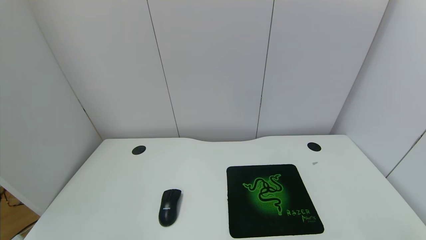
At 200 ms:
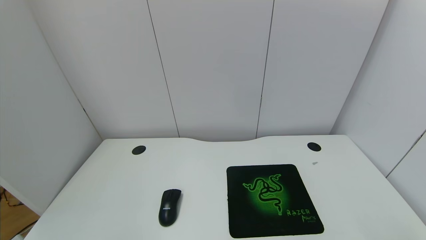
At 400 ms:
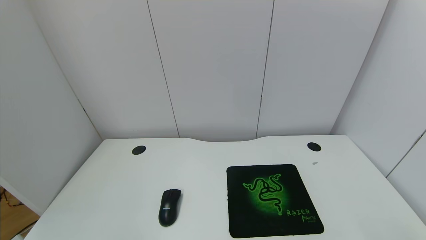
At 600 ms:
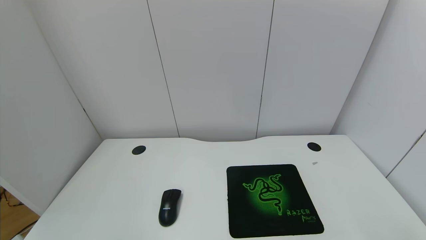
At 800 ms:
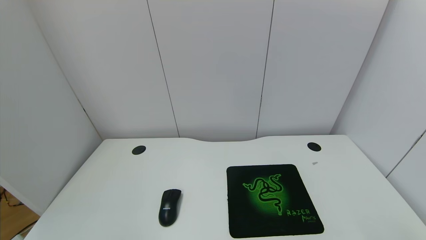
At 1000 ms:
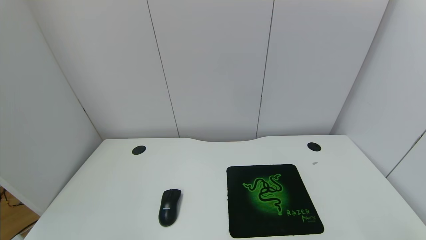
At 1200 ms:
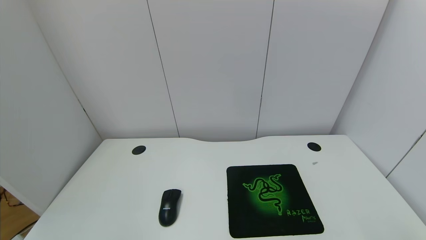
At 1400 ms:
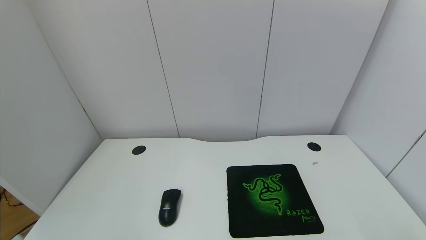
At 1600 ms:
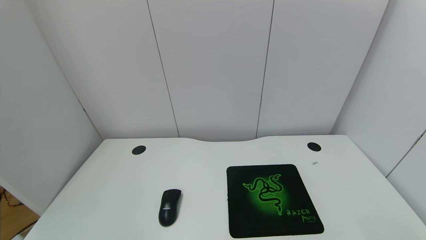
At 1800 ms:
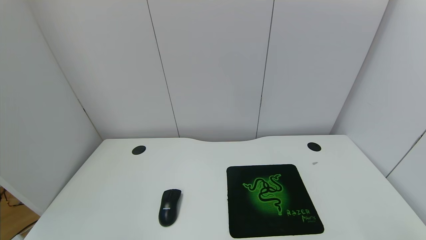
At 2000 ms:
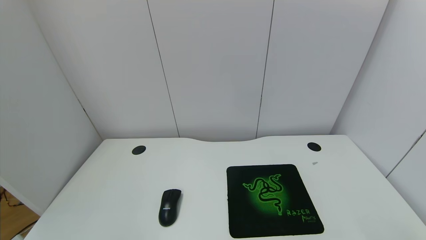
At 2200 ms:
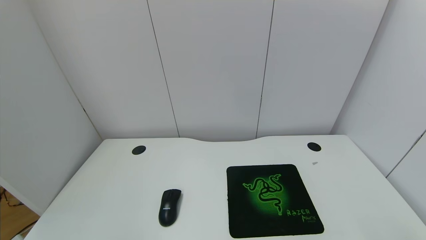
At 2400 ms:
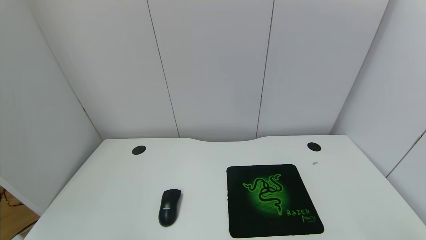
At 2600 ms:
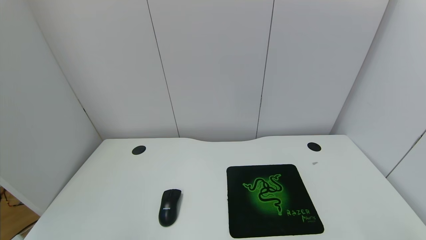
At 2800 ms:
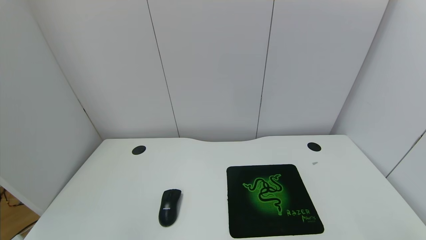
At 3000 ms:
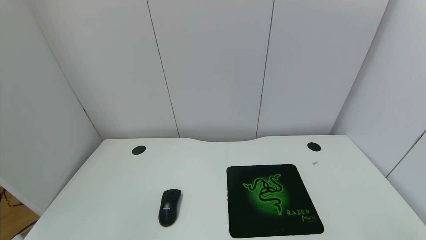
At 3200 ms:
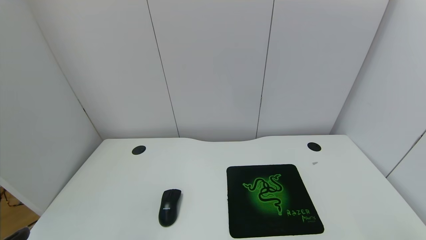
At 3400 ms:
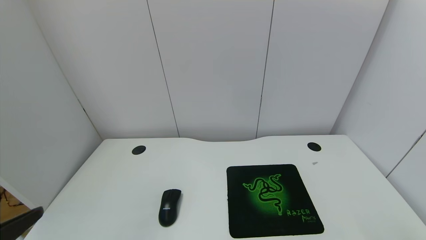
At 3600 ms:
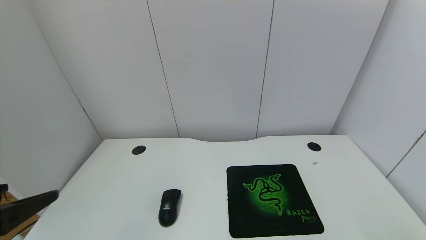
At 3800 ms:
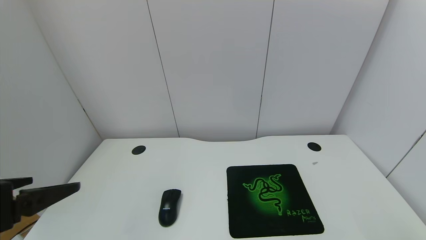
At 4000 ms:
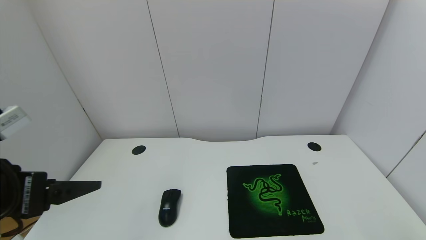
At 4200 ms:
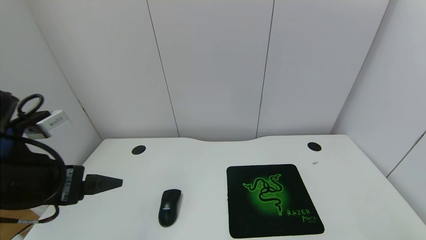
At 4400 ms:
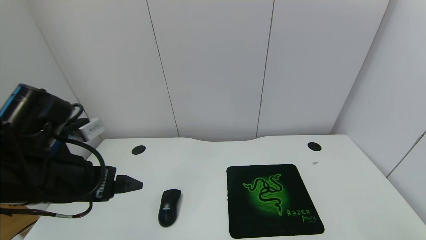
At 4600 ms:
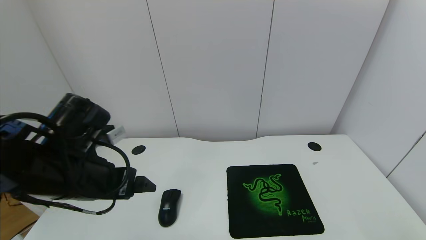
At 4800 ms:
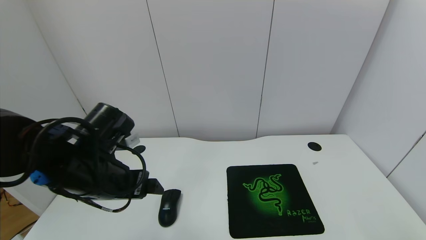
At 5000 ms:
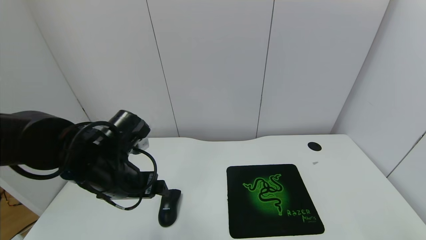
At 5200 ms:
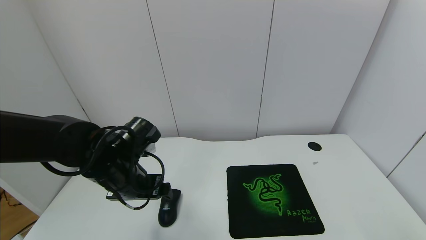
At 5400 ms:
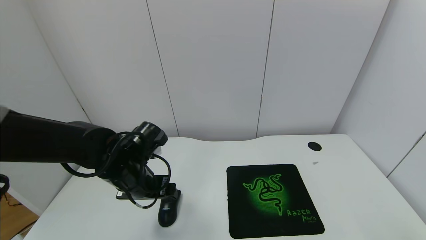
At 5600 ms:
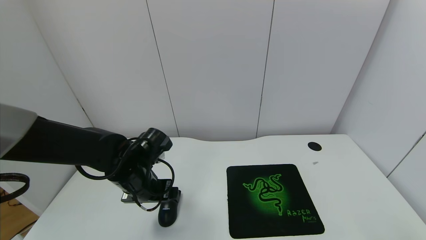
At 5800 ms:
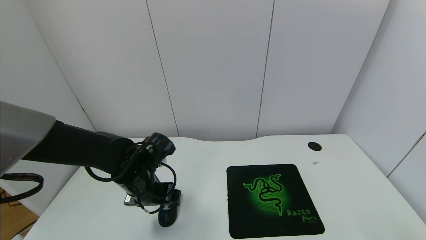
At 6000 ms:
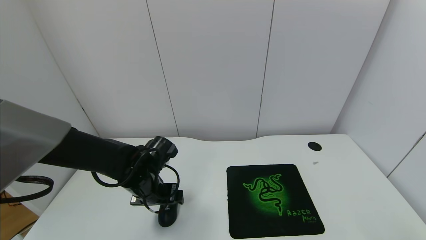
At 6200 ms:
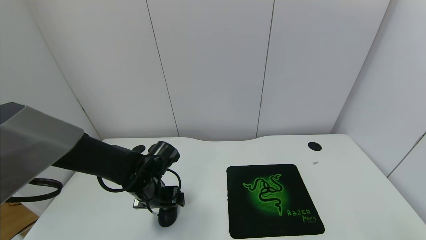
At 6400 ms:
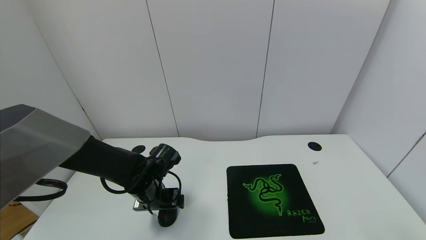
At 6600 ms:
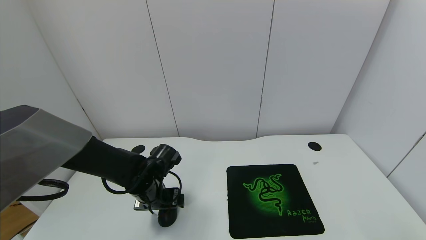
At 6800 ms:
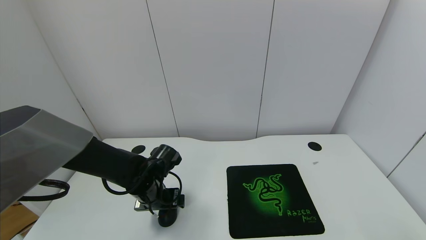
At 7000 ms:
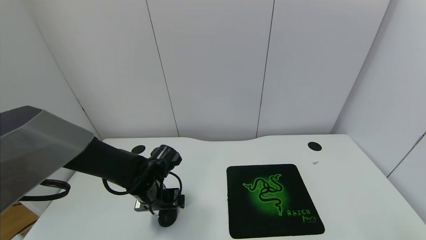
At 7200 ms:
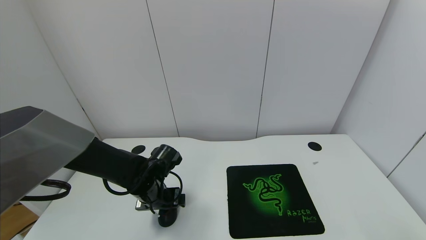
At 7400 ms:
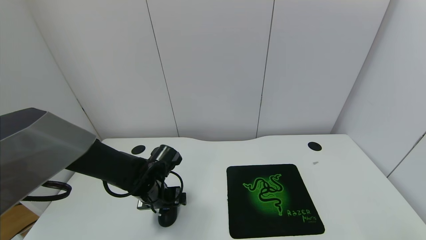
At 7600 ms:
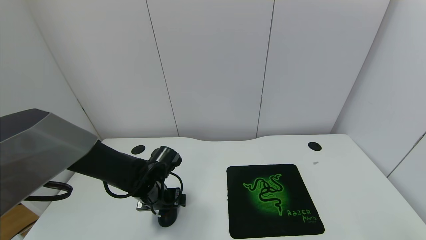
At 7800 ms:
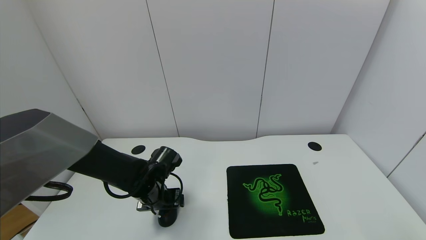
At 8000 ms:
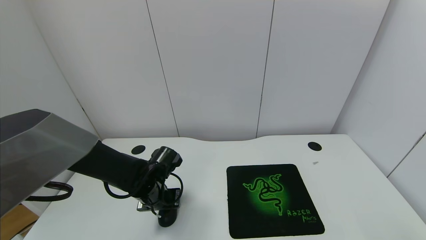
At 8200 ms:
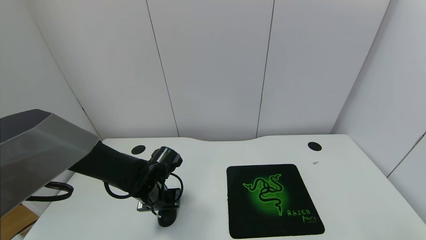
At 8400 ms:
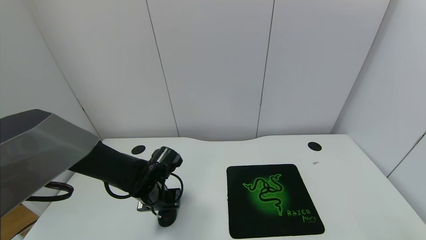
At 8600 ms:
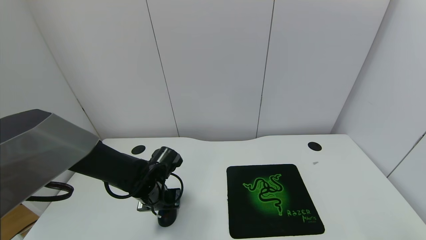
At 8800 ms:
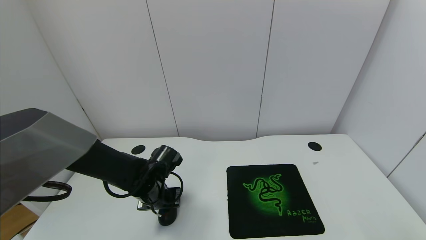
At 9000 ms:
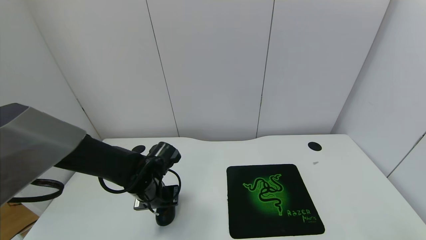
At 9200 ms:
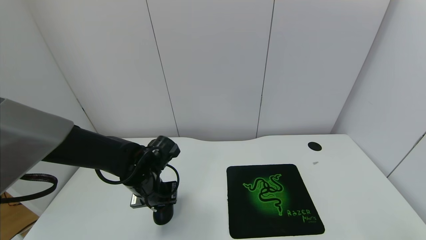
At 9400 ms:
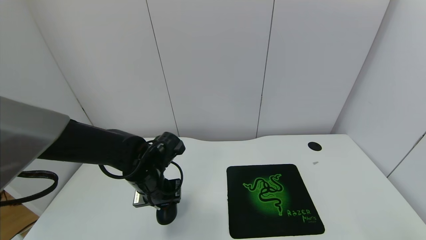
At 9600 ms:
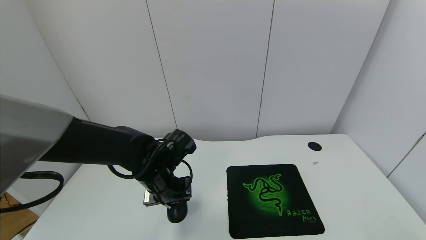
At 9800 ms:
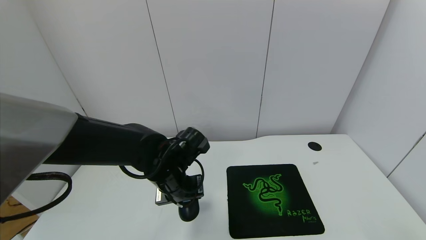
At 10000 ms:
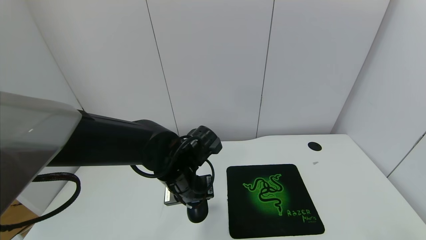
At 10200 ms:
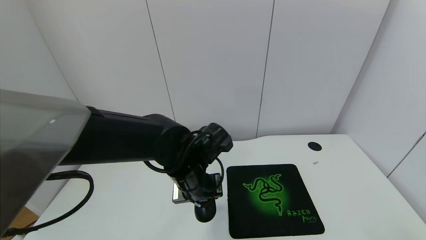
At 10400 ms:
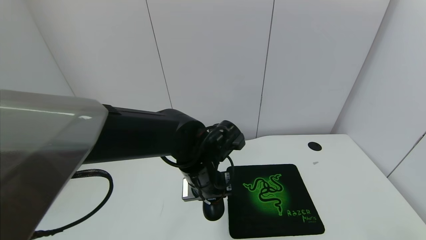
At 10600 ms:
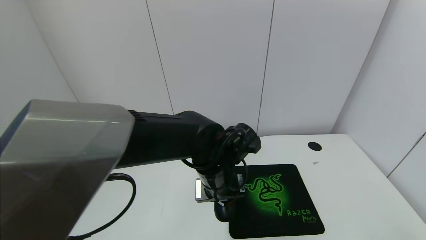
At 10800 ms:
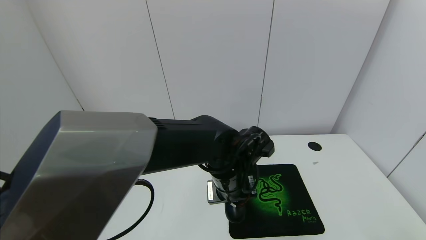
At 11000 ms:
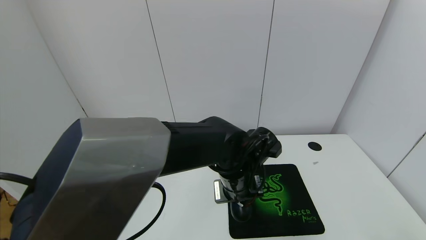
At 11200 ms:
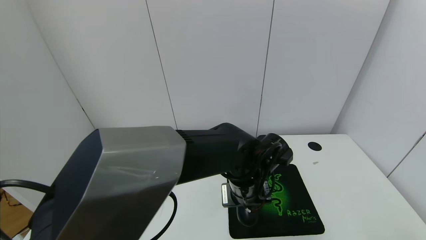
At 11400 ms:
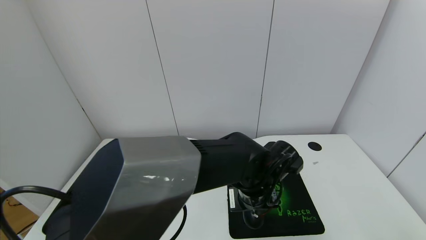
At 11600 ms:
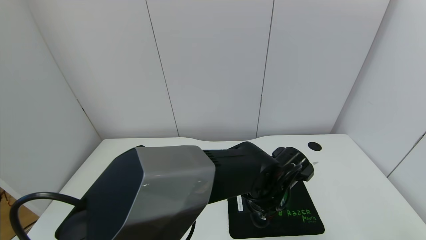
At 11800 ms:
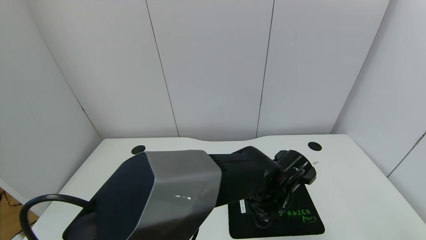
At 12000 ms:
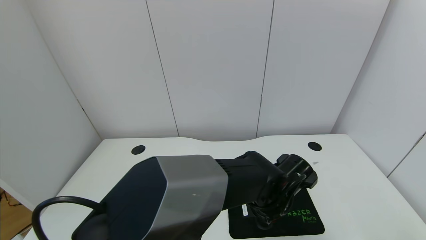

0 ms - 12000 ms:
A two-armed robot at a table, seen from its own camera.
Task of the whole recording: use the gripper to move the mouse from one side of the table to the mouse pad on the opposite side.
Step, 0 ms - 8000 ms: Grasp the mouse with the left gripper.
0 ms - 1600 ms: Both grippers stay put.
3000 ms - 4400 ms: The left gripper travels forward by approximately 20 cm.
4400 ms - 6000 ms: The left gripper travels downward and forward by some 20 cm.
6000 ms - 7600 ms: The grippers make only small movements.
7600 ms - 9000 ms: The left gripper closes its fingers.
9000 ms - 10400 ms: The left gripper goes some 15 cm to the right and upward.
10400 ms - 12000 ms: The left gripper is displaced to the right and downward by approximately 15 cm.

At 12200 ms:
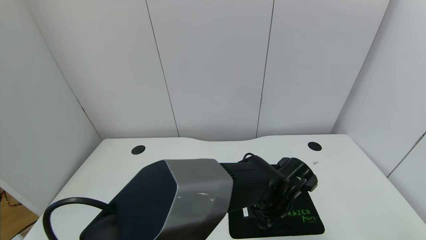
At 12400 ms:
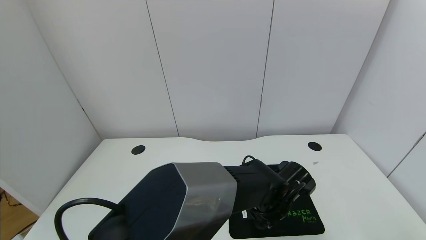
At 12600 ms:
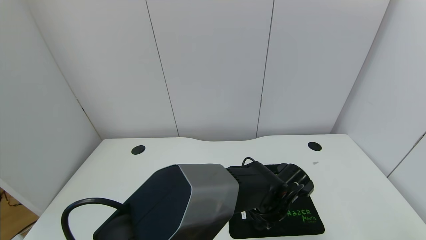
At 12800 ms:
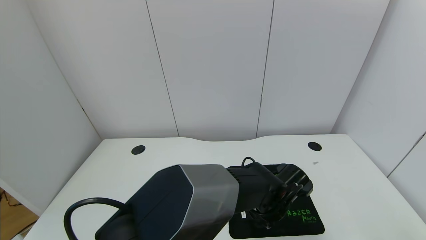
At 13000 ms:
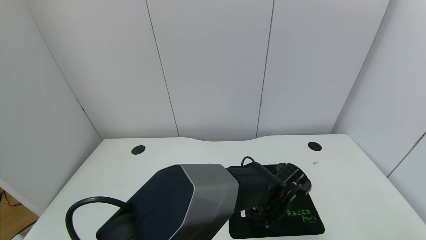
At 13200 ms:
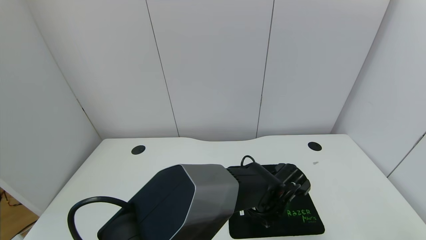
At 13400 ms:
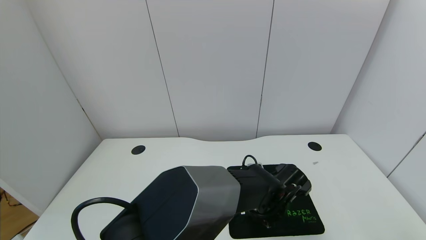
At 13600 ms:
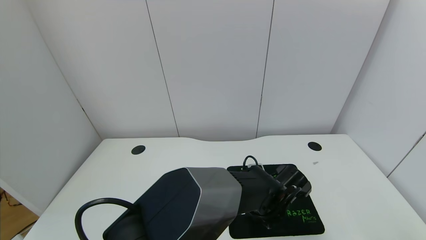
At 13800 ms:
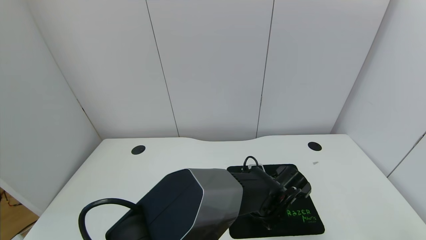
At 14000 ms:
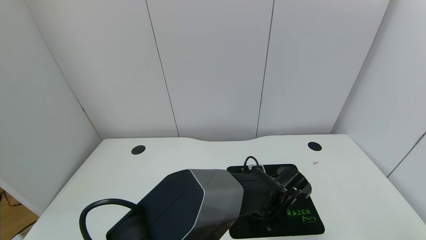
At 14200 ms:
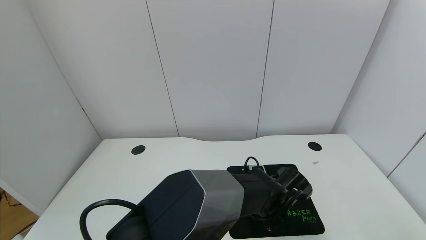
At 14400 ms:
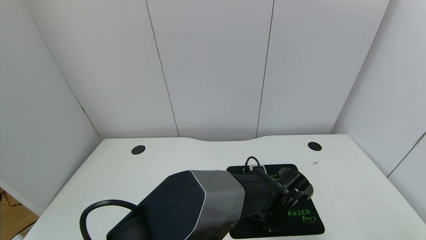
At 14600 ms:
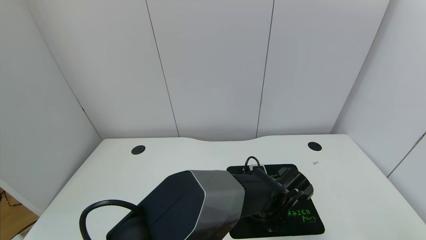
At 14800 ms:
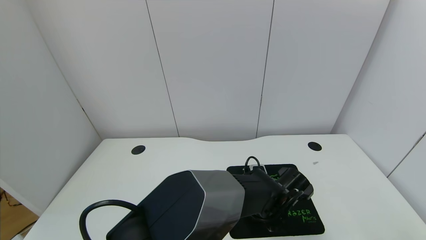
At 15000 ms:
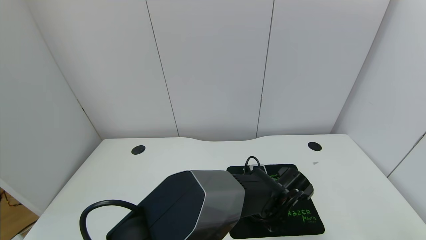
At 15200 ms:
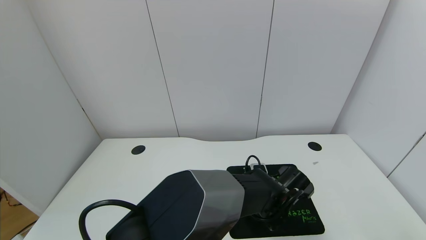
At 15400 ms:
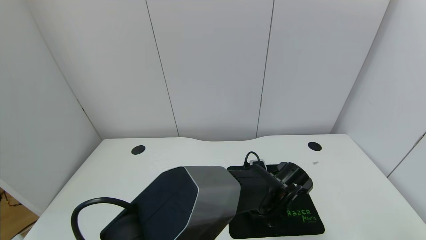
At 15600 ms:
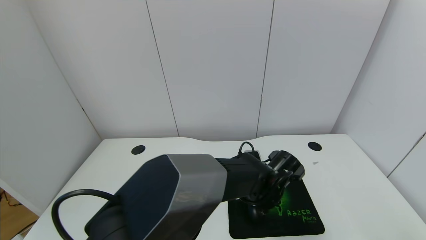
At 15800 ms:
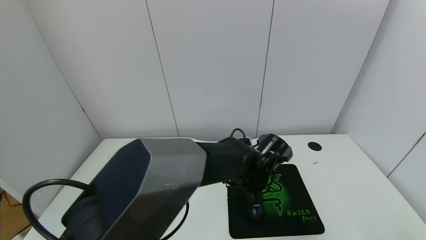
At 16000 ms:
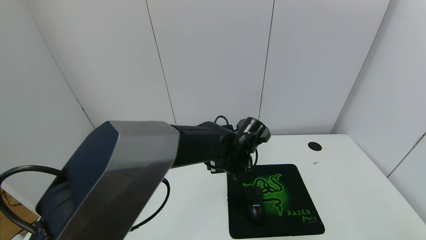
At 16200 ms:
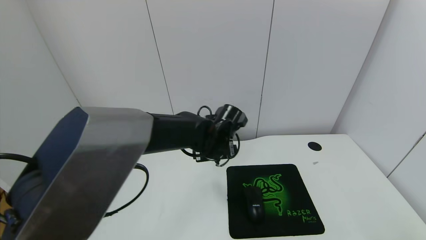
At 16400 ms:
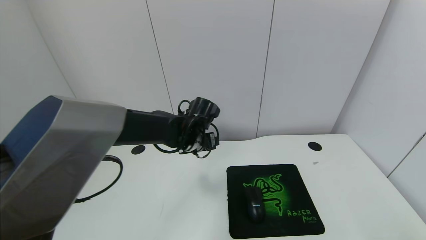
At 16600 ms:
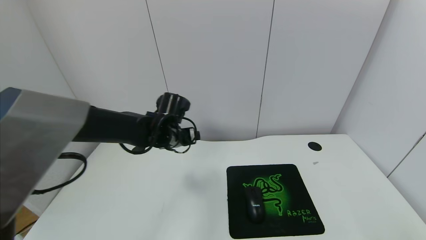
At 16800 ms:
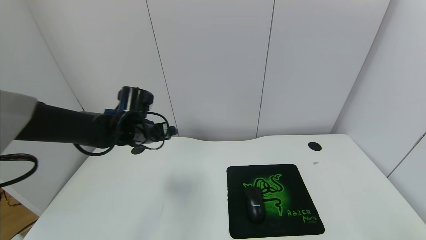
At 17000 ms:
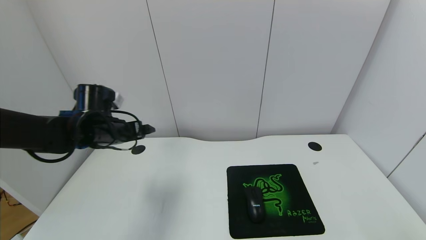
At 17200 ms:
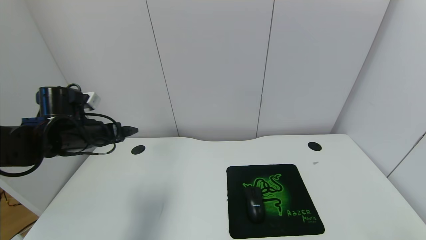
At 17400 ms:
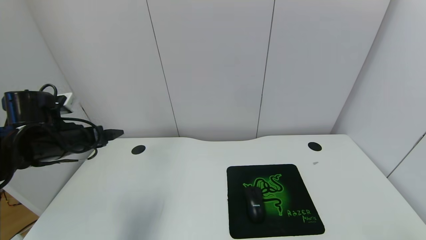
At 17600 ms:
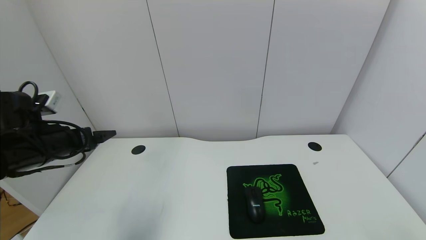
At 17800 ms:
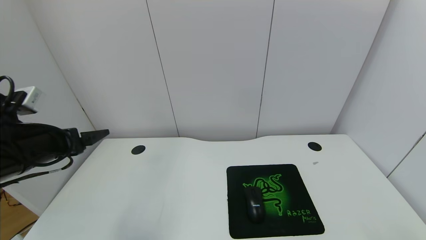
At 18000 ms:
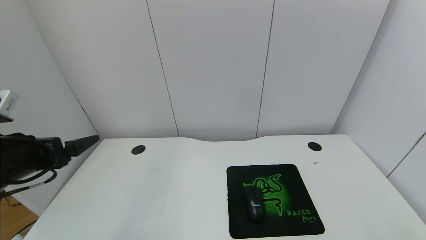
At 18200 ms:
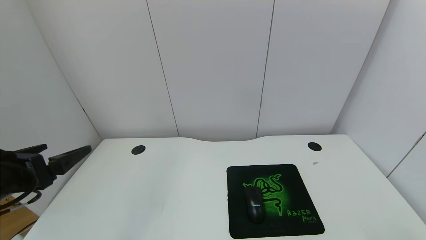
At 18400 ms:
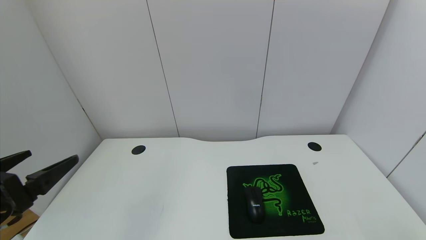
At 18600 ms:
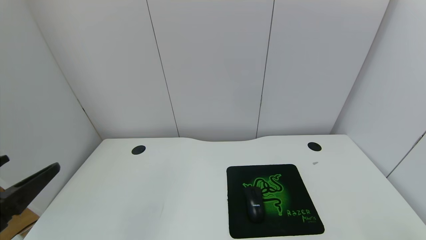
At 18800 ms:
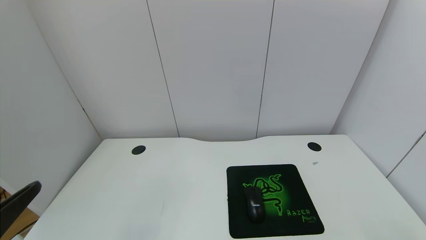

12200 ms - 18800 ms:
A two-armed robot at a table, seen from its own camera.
Task of the whole recording: use the gripper to move the mouse from one side of the table to the mouse pad on the opposite side.
Step, 12200 ms - 16000 ms: Place the mouse on the mouse pad with the left gripper.
12200 ms - 13800 ms: The grippers move only a little.
13800 ms - 15400 ms: The left gripper opens up.
15400 ms - 17200 ms: The left gripper moves to the left, roughly 40 cm.
17200 ms - 18800 ms: The left gripper shifts approximately 30 cm backward.
